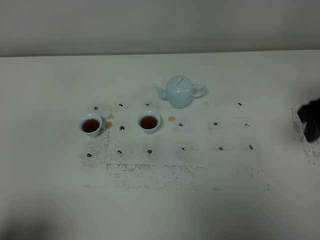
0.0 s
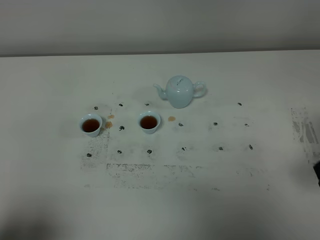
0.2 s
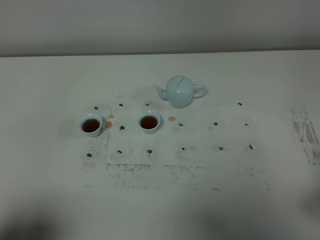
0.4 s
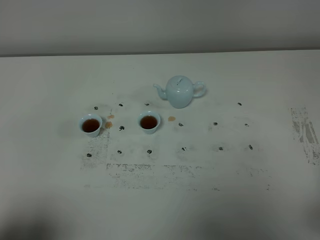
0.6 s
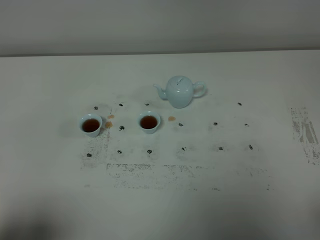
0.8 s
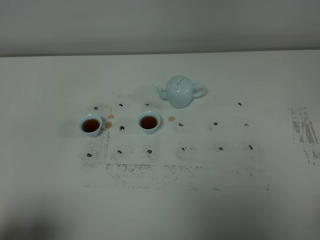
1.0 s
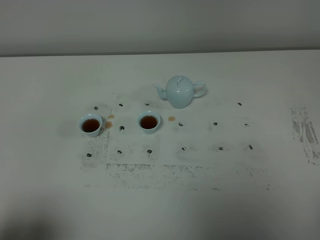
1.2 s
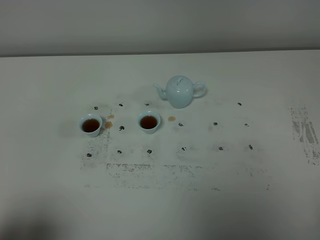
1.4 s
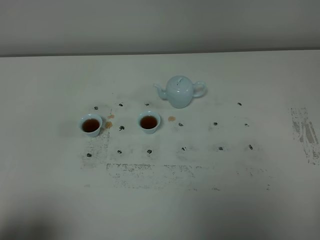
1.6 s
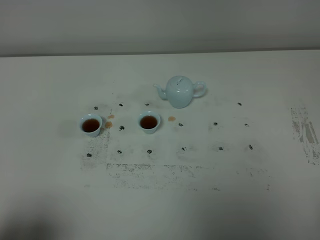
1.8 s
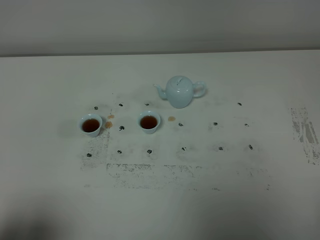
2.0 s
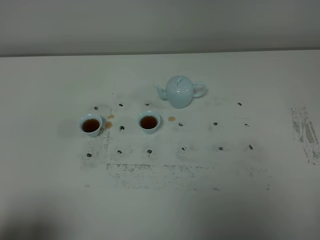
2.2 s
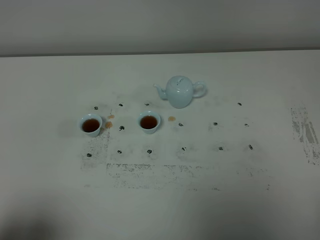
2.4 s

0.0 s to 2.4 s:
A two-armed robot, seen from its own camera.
Task of the whole recording: grasp the blue porcelain teapot and pour the tea into the two blue porcelain teacups one by one, put the blue porcelain teapot back in its original place.
0.0 to 1.2 s: The right gripper moves backward, about 25 cm.
1.2 to 2.4 s: The two grippers keep their place.

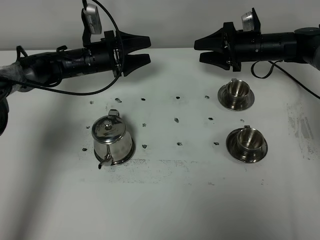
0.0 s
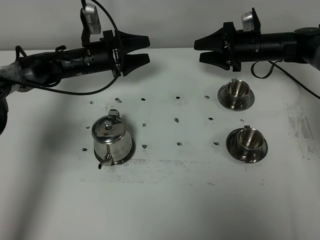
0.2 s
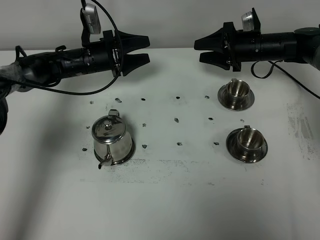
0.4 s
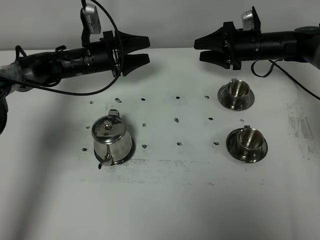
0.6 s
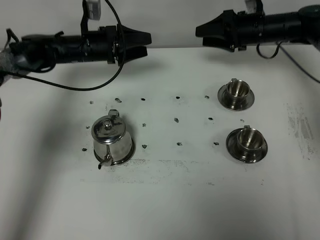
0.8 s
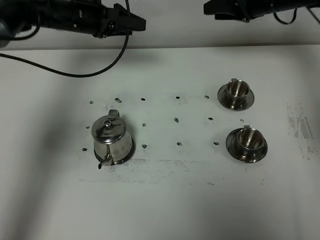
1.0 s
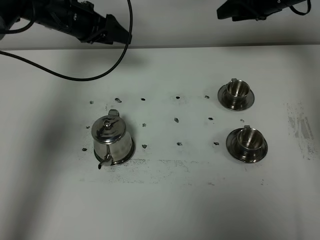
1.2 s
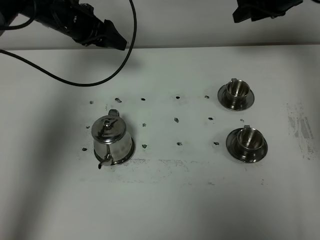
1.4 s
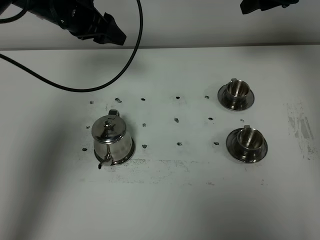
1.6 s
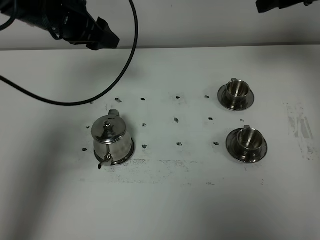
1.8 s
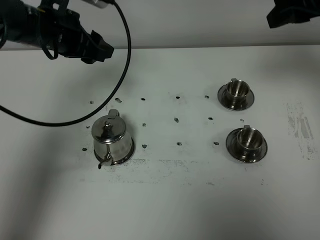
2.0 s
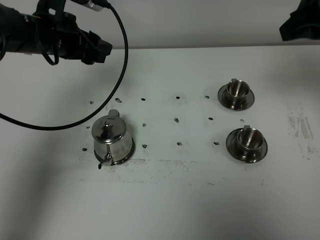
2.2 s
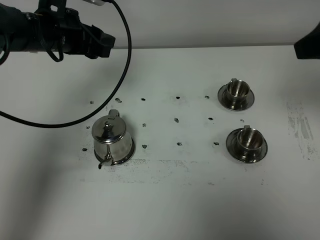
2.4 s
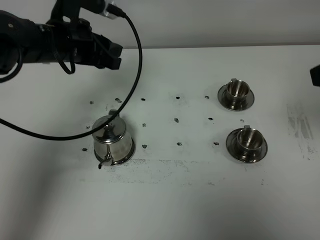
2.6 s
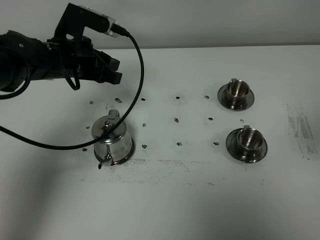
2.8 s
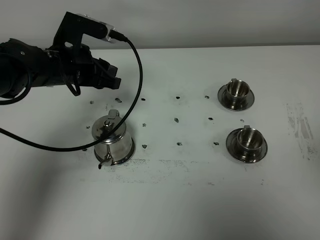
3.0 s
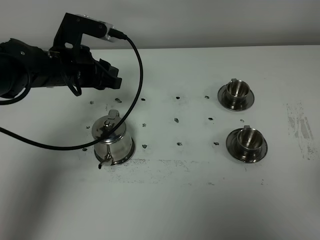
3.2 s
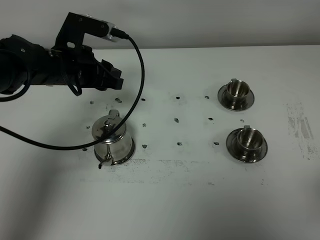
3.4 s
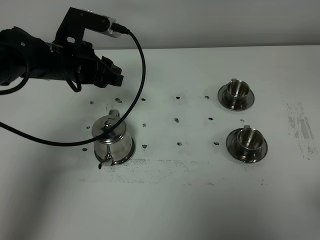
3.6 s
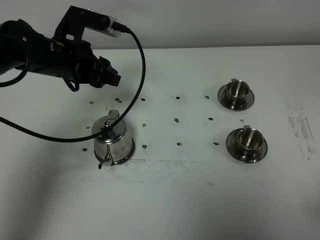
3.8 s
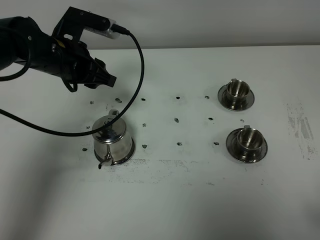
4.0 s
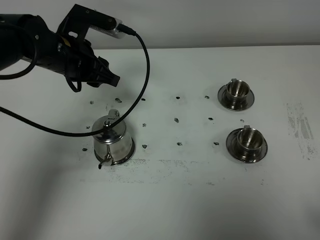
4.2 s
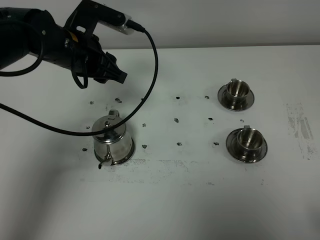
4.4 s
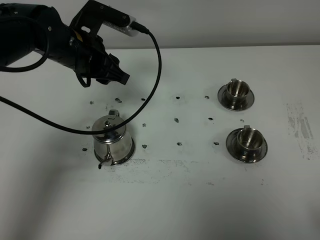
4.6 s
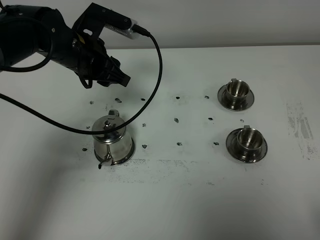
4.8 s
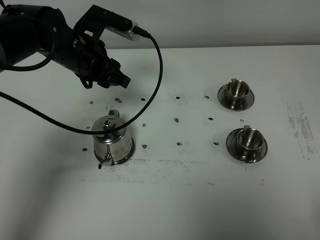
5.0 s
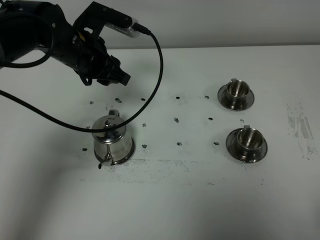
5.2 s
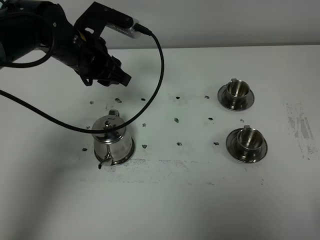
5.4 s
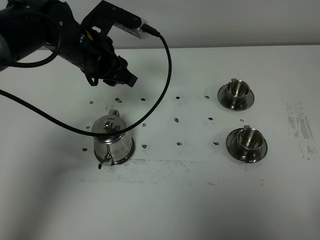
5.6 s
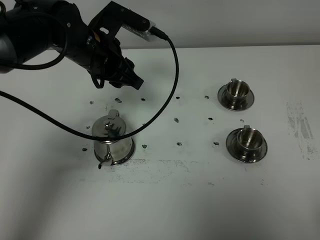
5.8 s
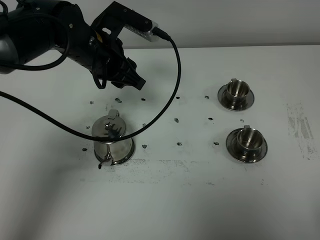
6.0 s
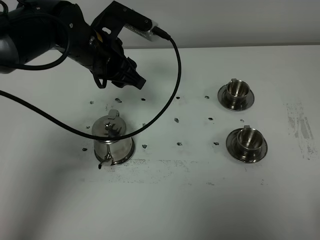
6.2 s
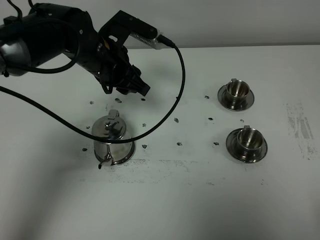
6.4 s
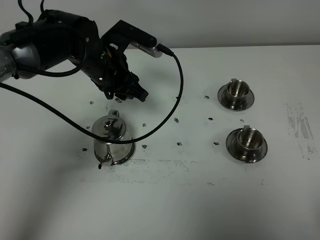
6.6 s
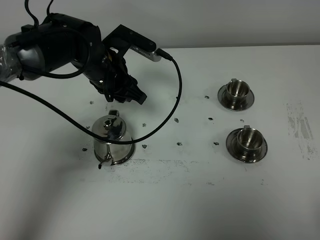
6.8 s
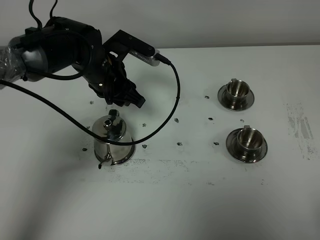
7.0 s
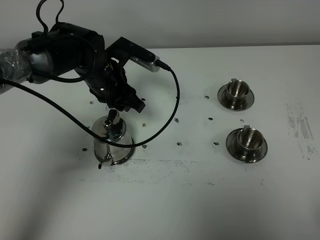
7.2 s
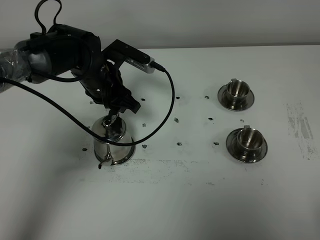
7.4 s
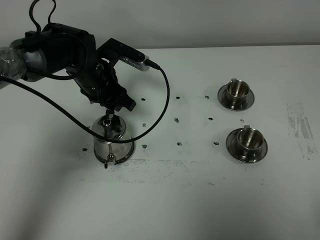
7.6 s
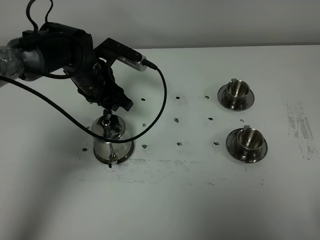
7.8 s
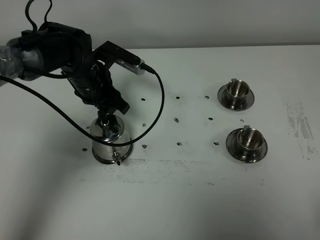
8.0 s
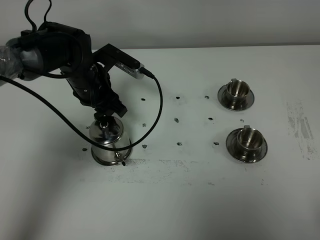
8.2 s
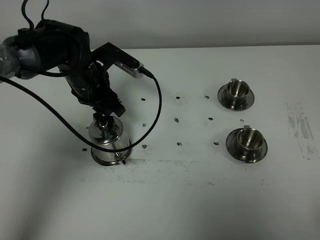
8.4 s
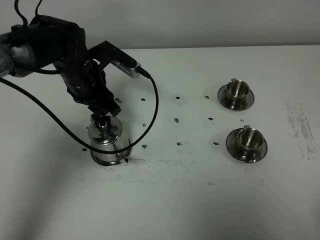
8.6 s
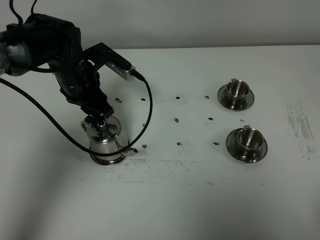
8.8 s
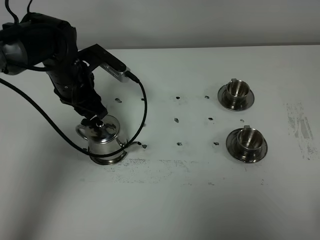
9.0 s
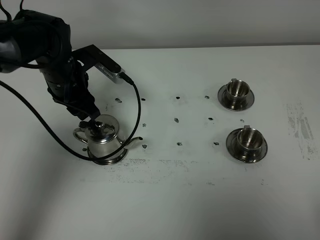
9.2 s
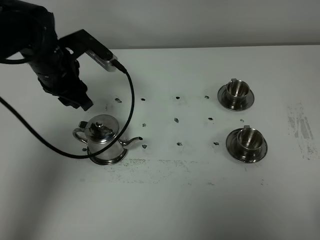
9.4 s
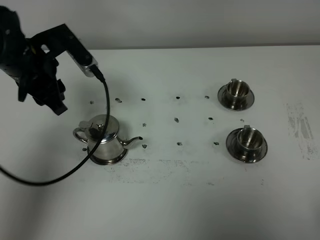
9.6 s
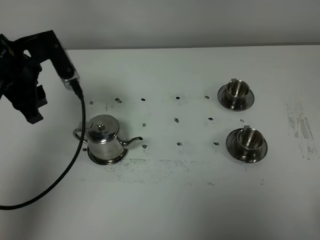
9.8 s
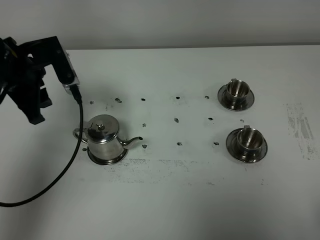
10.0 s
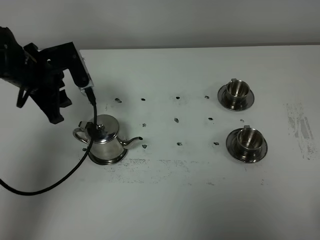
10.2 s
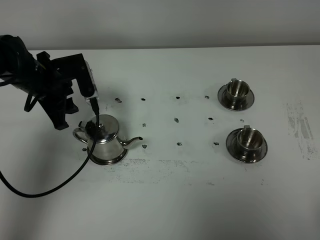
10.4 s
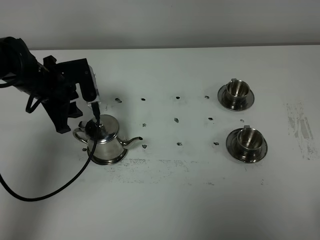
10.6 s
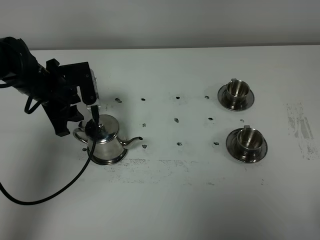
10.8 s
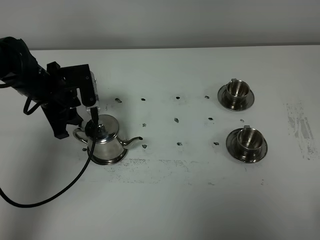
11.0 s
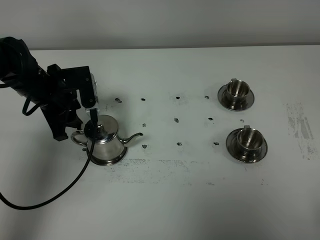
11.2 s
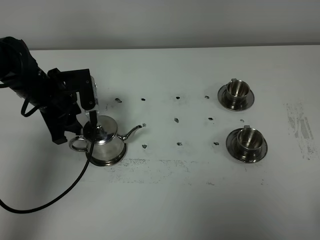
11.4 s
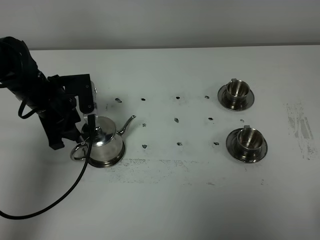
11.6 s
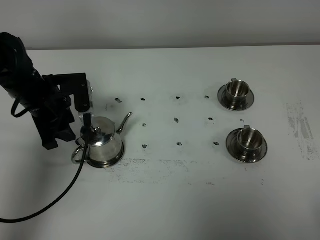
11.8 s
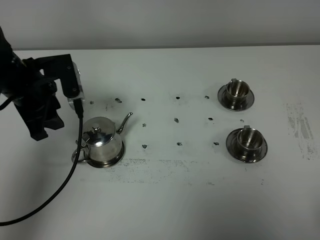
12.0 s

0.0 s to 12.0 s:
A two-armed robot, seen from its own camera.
Task of the whole recording: grasp the stainless steel teapot and pour the tea into the two stainless steel teacups one by one, put the stainless steel teapot back in its original place.
0.0 to 1.6 s: Both grippers move upward, roughly 20 cm.
1.6 to 3.0 s: The right gripper heads backward, covering approximately 40 cm, while the left gripper shifts roughly 10 cm backward and downward.
3.0 to 4.4 s: The right gripper travels downward and backward by roughly 15 cm, and closes up.
4.4 to 6.0 s: The grippers make only small movements.
6.0 to 7.6 s: The left gripper is displaced downward by roughly 10 cm.
7.6 to 9.0 s: The grippers move only a little.
9.0 to 10.4 s: The left gripper is displaced to the left by some 5 cm, and travels upward and back again, roughly 10 cm each way.
10.4 to 12.0 s: The left gripper heads upward and backward, covering roughly 10 cm.

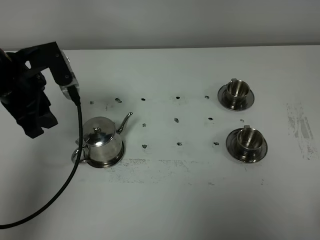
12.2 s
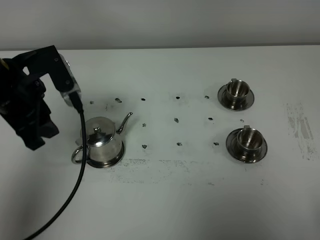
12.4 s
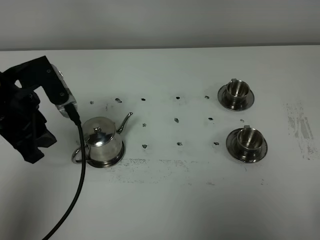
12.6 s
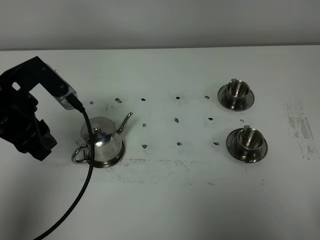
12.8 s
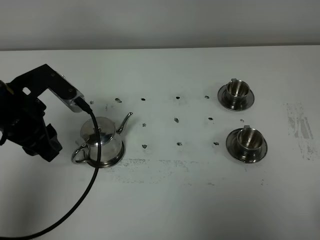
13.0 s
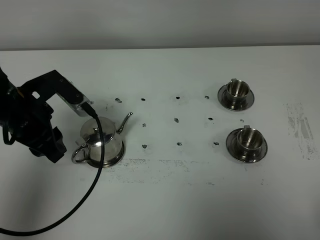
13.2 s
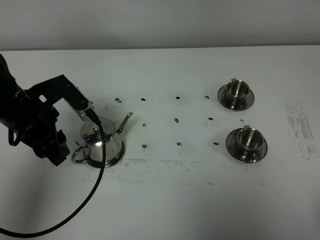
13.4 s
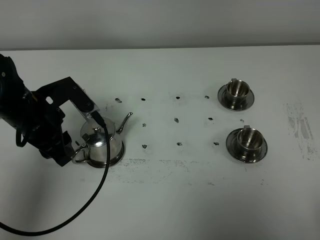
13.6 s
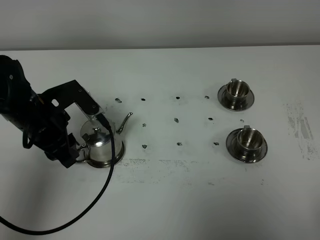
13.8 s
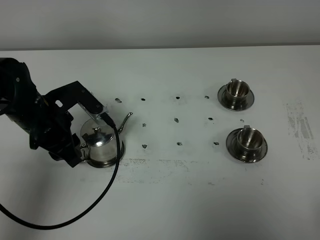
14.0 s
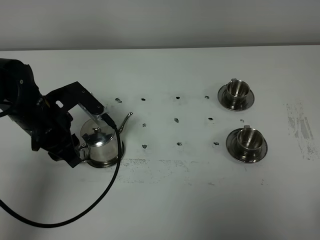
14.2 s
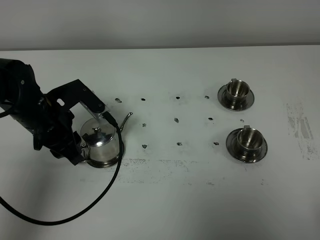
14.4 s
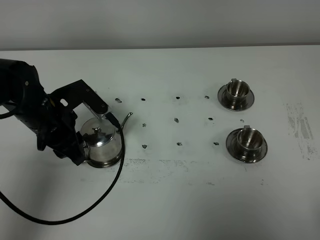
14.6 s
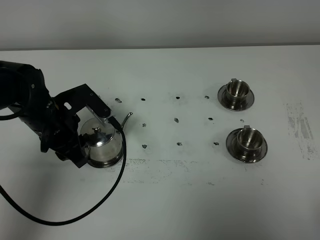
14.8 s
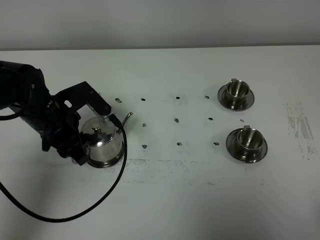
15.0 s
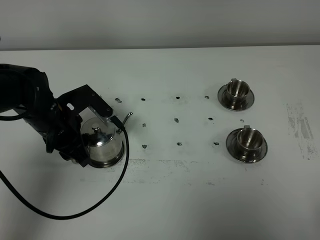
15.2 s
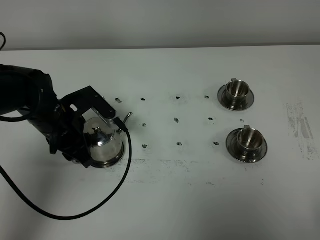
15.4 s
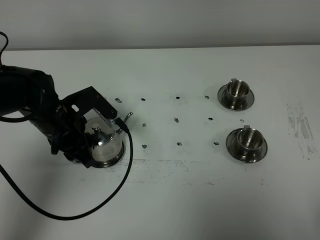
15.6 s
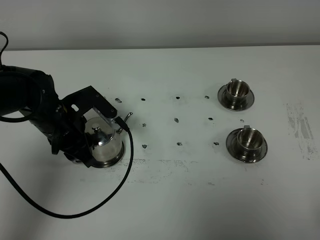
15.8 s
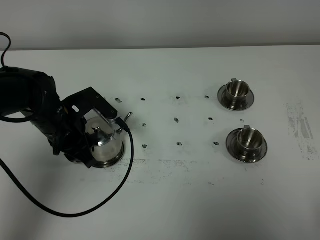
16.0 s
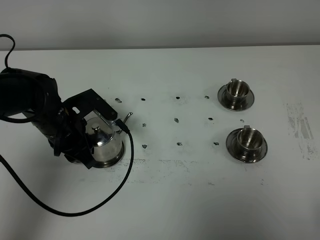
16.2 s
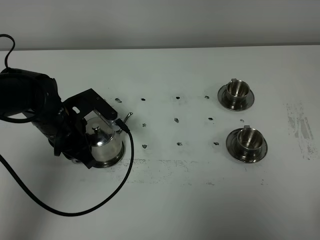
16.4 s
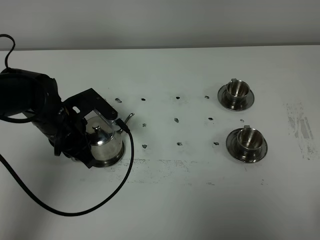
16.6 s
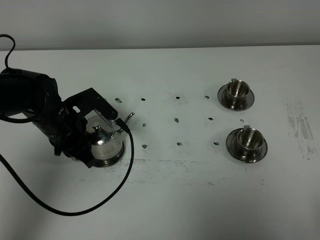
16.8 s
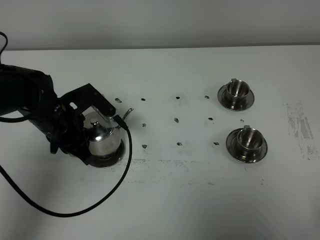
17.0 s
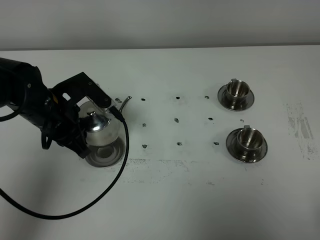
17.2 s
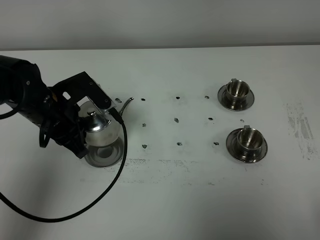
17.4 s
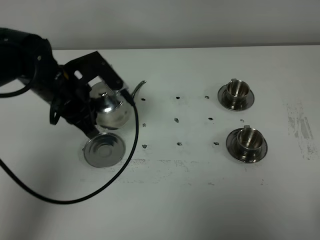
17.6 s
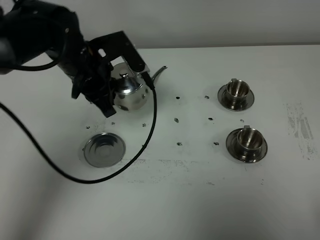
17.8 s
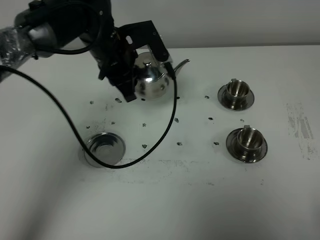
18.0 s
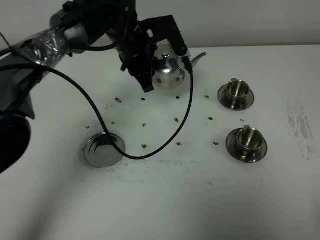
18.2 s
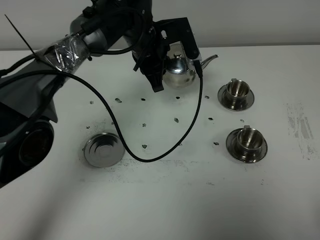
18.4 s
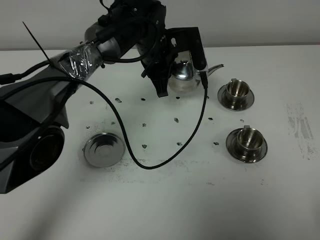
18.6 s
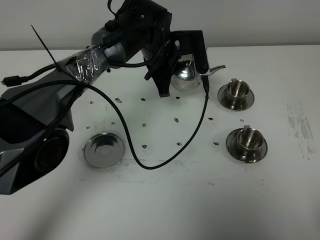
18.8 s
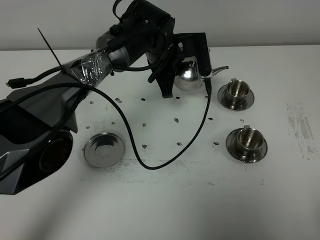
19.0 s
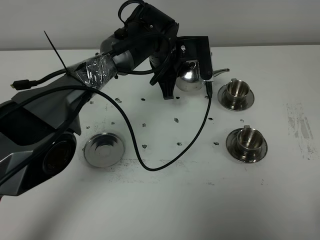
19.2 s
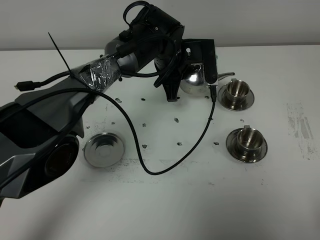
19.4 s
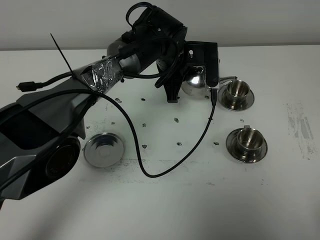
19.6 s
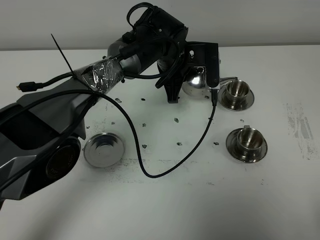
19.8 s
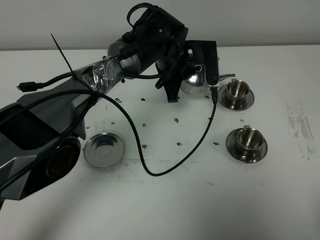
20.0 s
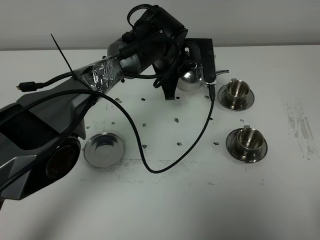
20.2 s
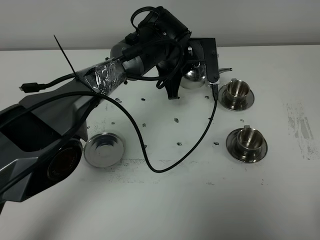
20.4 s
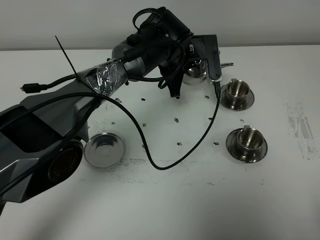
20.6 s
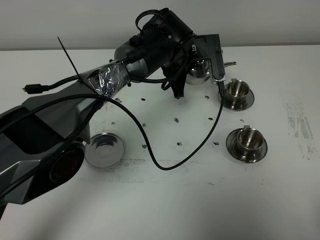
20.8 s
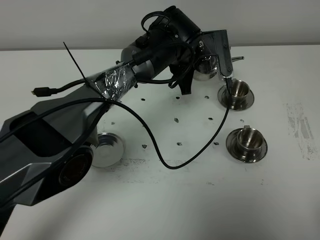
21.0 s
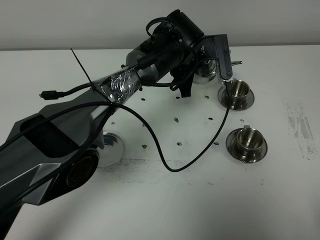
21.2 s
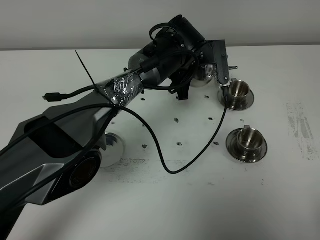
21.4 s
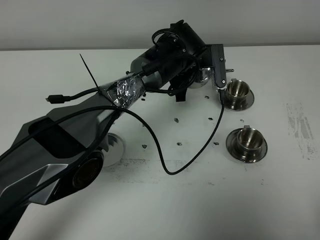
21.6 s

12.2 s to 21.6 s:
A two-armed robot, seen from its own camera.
Task of the whole recording: grasp the stainless steel teapot and pour the tea into the two stainless steel teacups one by one, put the stainless steel teapot back in its original place.
Step, 12.2 to 16.8 s: Pick up the teapot with the left gripper.
12.2 to 13.8 s: The left gripper moves downward, approximately 10 cm.
13.8 to 15.4 s: The grippers move only a little.
15.4 to 17.0 s: The left gripper closes up.
17.0 to 18.4 s: The left gripper shifts roughly 20 cm to the right and forward.
18.4 to 20.0 s: The left gripper shifts by approximately 5 cm.
